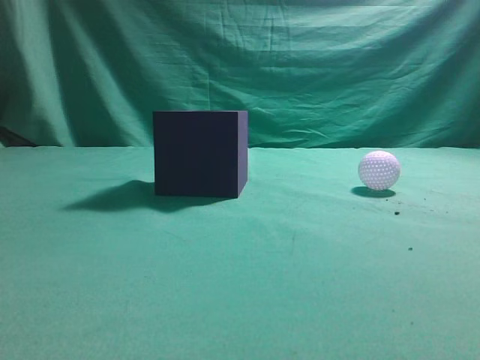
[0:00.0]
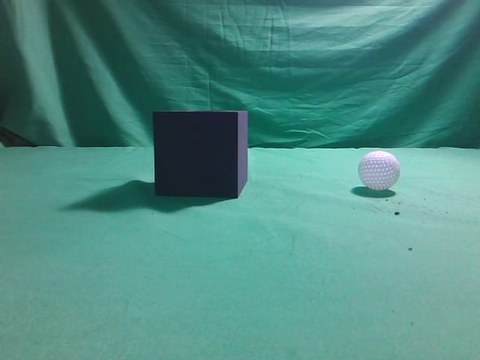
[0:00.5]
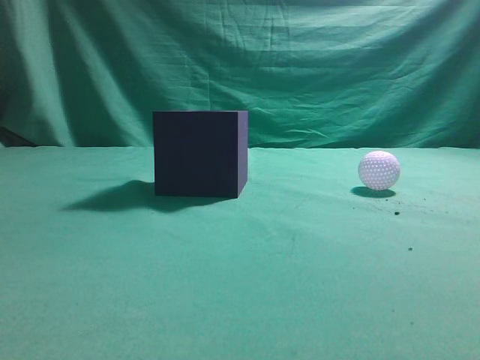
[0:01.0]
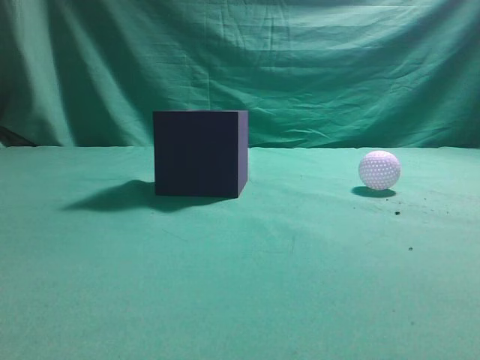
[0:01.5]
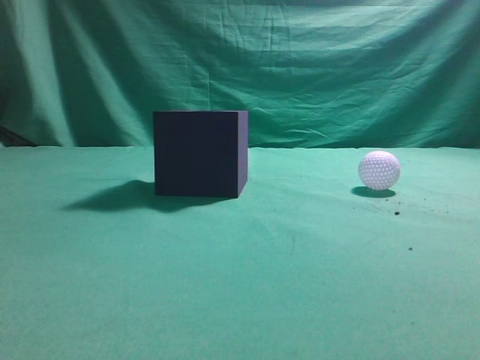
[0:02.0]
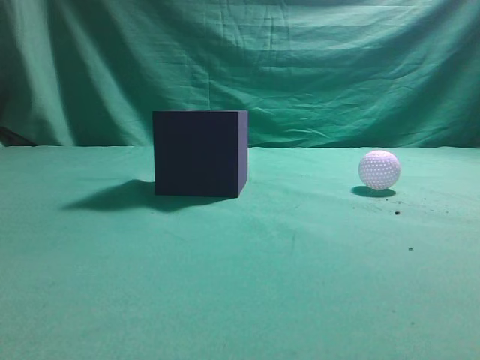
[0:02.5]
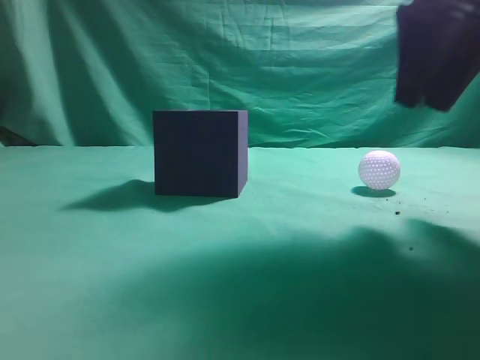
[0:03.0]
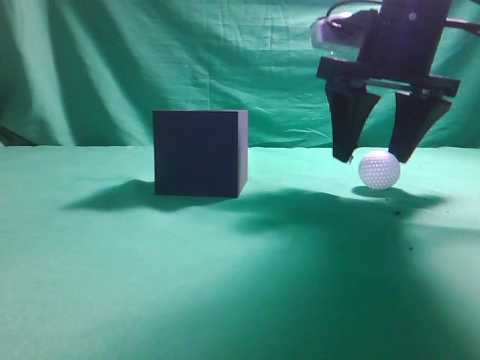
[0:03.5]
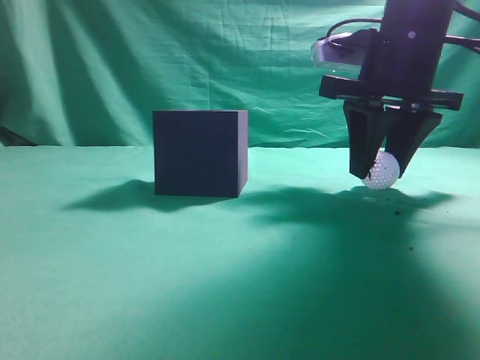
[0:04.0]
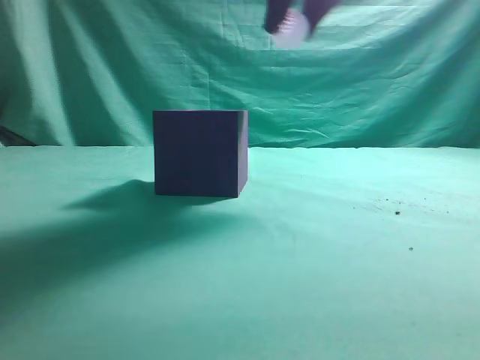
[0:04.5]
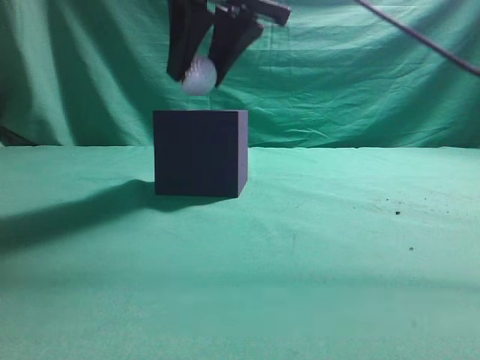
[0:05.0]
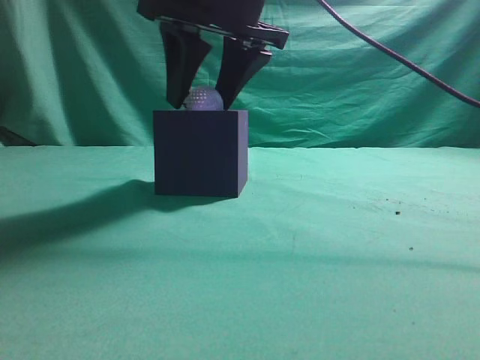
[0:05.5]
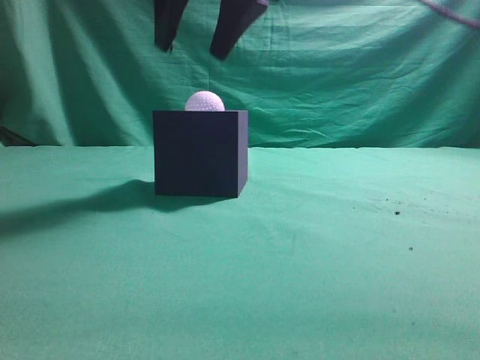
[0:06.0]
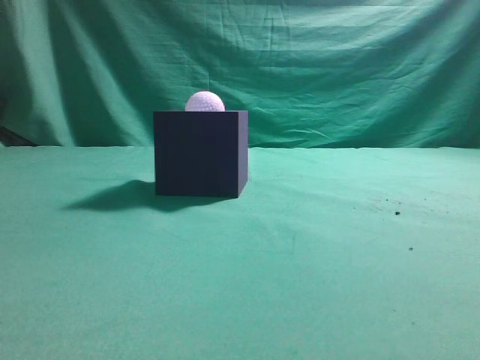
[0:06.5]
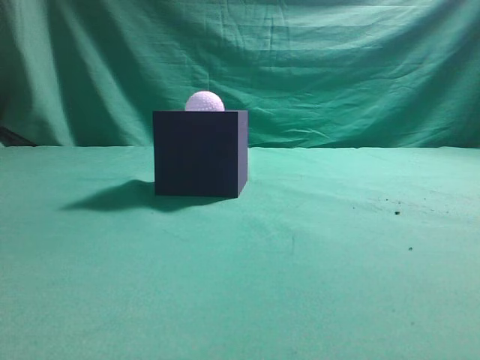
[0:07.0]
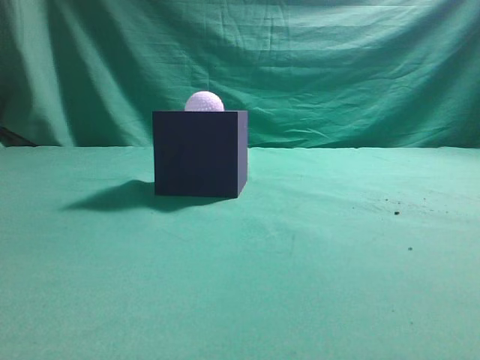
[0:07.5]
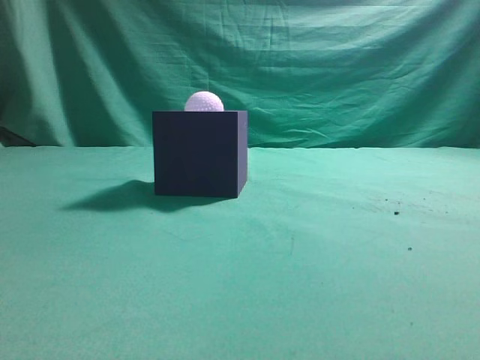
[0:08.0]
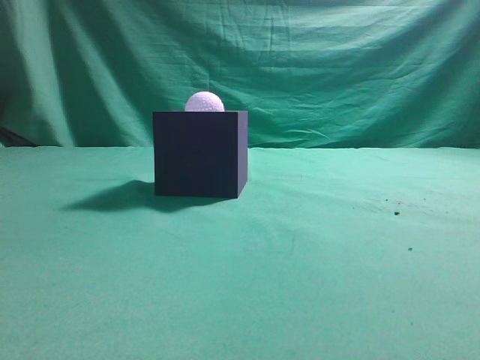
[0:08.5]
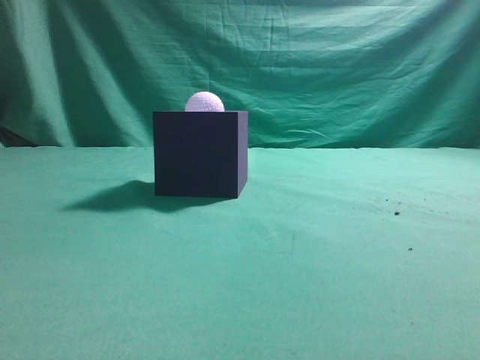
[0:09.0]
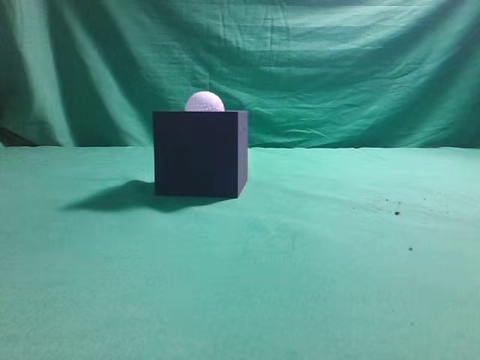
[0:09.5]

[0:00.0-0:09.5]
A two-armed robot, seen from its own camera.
Task of the whole recording: Pick up the ball and place it in the circular groove above the cube.
Step, 0:00.0 to 0:04.0: Grasp the sphere on the table.
Step, 0:04.5 to 0:05.5: Place the sphere into the sphere-shaped recess.
0:02.0 to 0:04.0: The right gripper shifts roughly 30 cm forward and to the left, and opens.
0:04.0 to 0:05.5: The right gripper heads to the left and upward, covering roughly 15 cm.
0:05.5 to 0:07.5: The right gripper is displaced backward, to the right and upward by some 35 cm, and closes up.
